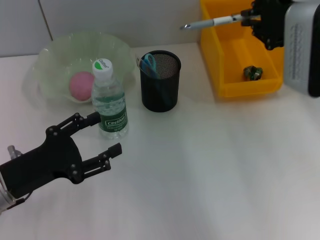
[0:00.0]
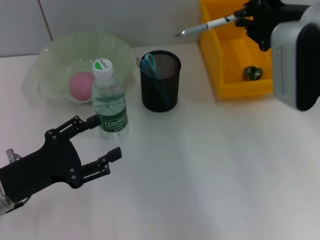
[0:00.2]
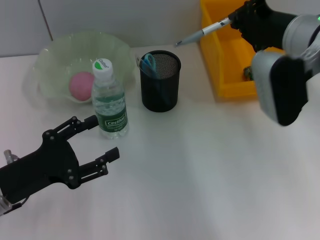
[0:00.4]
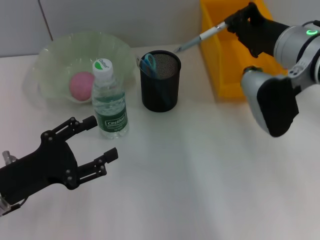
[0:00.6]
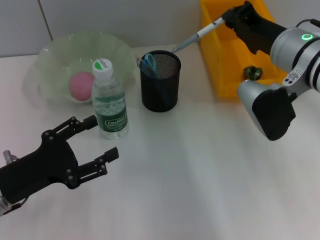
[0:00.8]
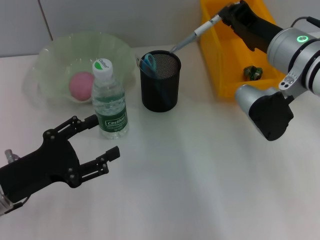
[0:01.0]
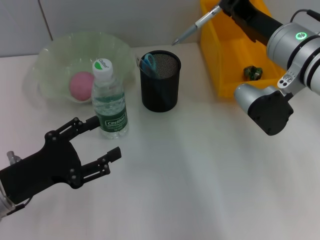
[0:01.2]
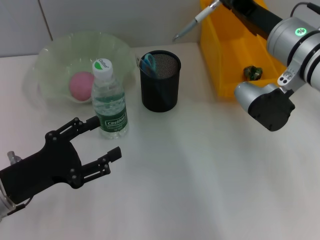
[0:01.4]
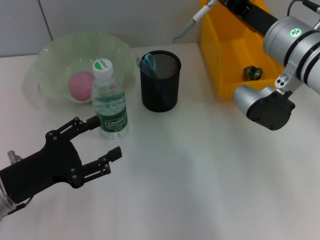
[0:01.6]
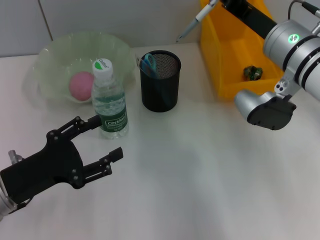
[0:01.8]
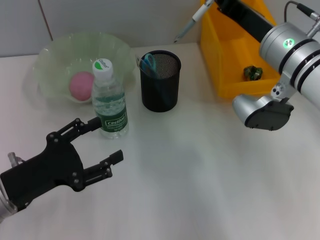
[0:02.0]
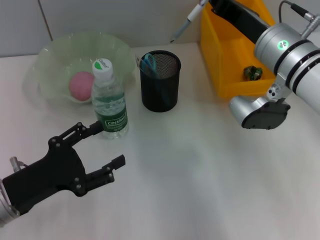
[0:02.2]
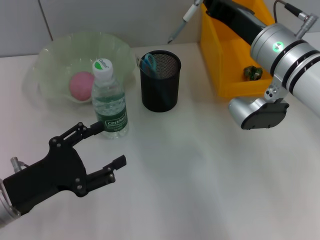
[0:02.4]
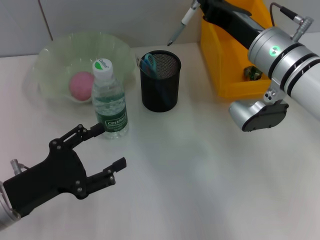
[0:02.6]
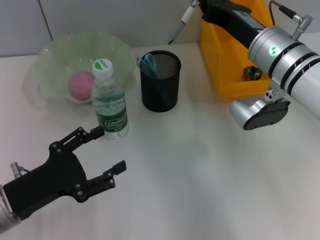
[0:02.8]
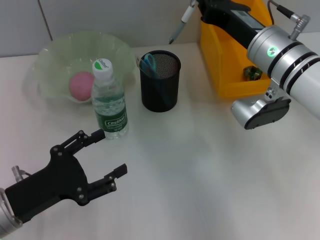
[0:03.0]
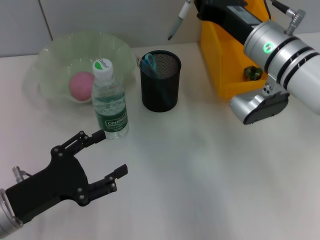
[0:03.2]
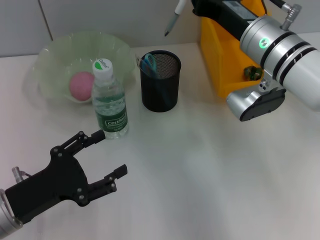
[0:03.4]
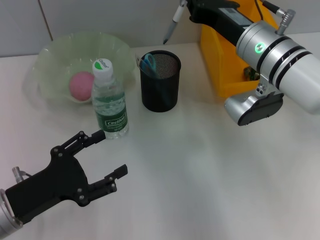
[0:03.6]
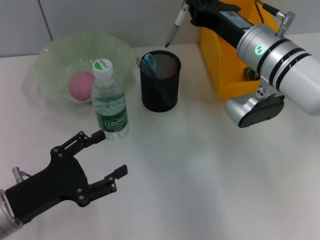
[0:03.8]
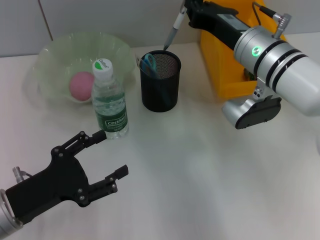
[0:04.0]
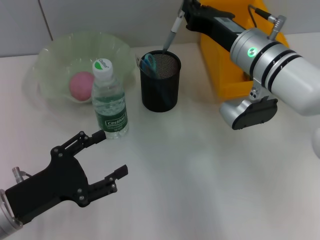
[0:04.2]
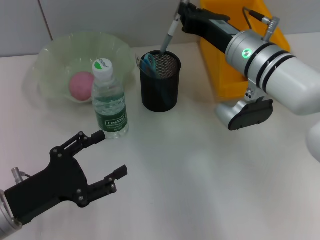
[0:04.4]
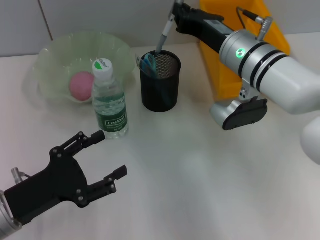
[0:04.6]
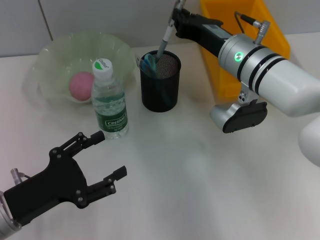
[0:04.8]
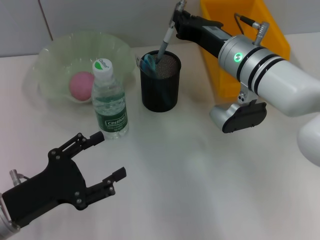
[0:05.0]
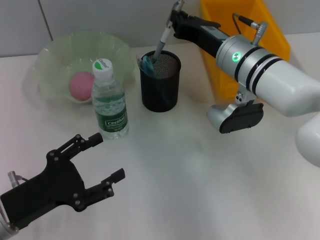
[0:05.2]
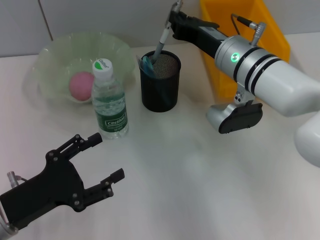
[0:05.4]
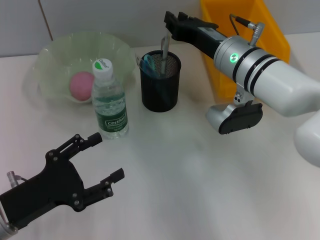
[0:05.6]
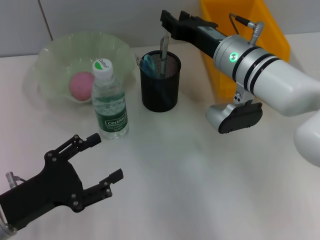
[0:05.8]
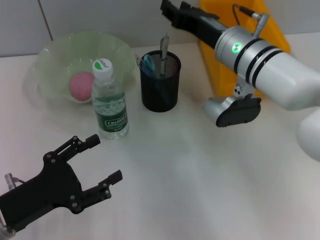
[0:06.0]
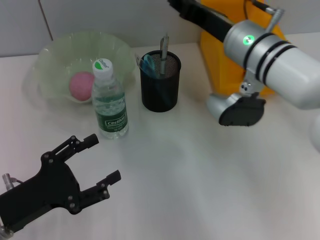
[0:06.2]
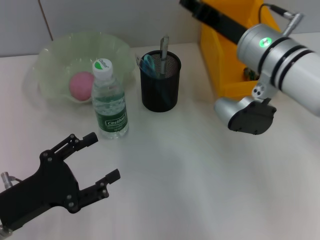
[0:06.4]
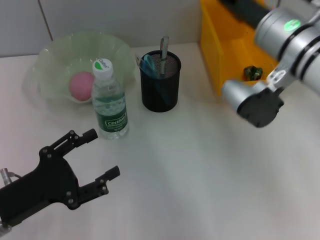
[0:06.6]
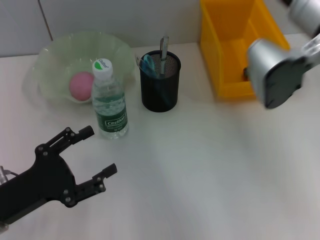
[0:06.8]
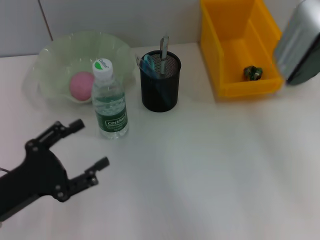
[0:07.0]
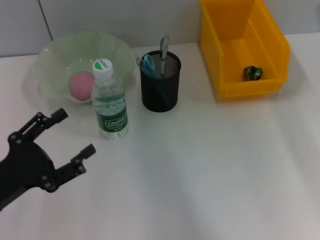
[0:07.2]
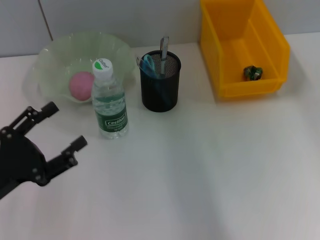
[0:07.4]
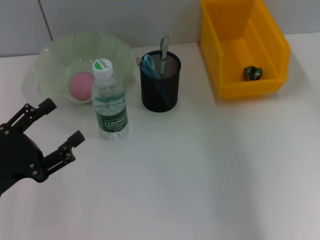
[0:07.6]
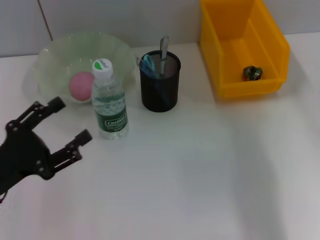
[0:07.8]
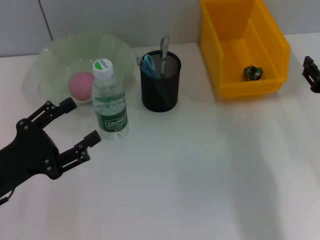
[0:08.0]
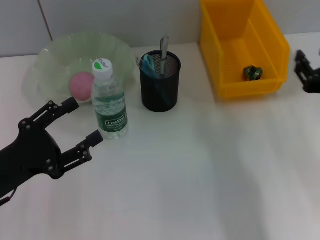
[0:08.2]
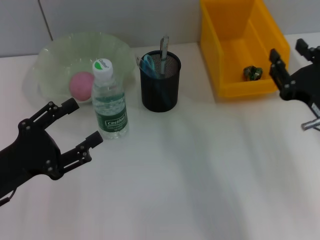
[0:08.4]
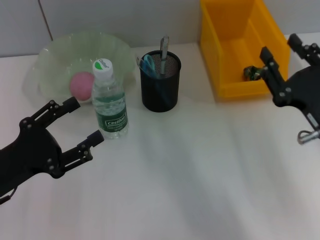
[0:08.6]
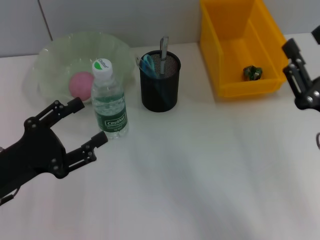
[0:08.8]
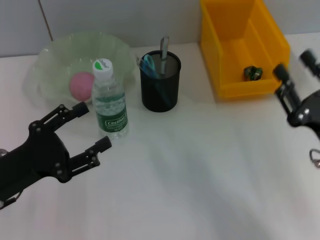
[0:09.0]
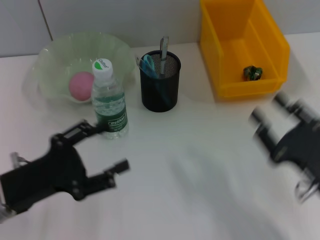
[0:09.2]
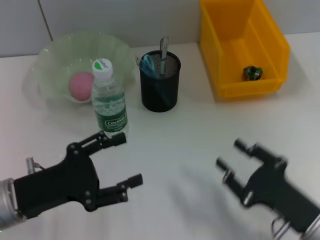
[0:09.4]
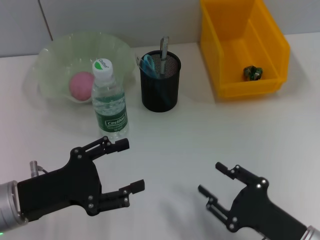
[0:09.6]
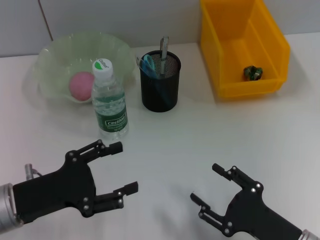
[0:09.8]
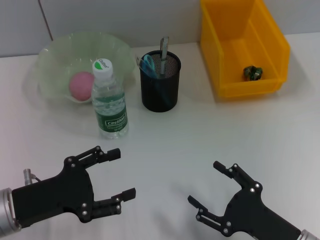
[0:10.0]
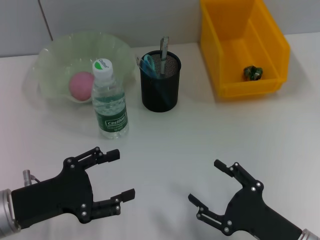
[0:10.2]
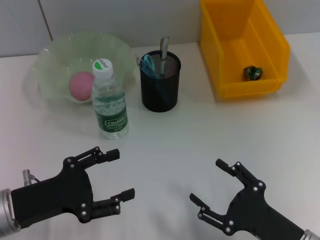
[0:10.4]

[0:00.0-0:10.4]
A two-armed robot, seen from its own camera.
Step, 0:00.0 to 0:06.2: Place the gray spring-action pen into the pen holder with the right hand.
0:00.0 to 0:01.4: The right gripper ends up roughly 5 cm from where it was.
0:03.0 to 0:04.4: The grippers make only small movements.
0:04.4 to 0:06.0: The right gripper opens its fingers.
0:06.0 to 0:07.4: The right gripper goes approximately 20 cm to the right, upward and backward.
0:07.4 to 0:09.0: The right gripper travels downward and backward by some 20 cm.
0:09.0 to 0:10.4: The right gripper moves downward and backward, about 10 cm, and opens its fingers.

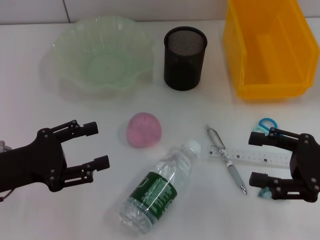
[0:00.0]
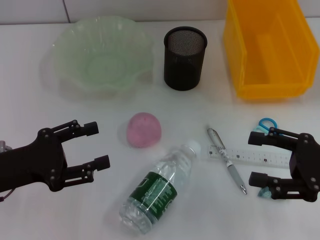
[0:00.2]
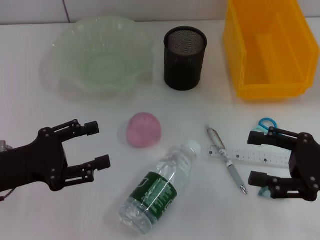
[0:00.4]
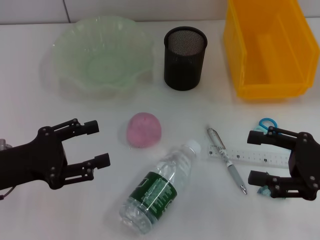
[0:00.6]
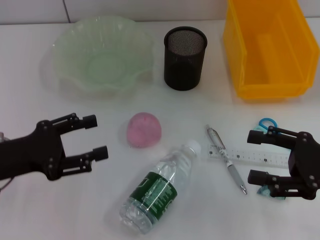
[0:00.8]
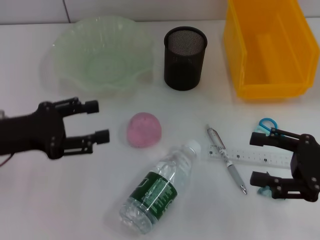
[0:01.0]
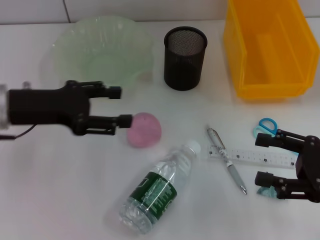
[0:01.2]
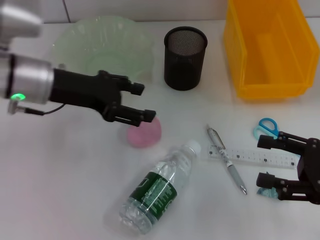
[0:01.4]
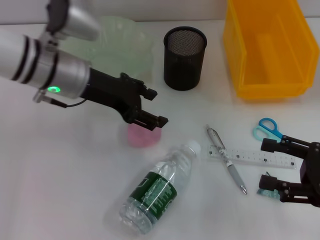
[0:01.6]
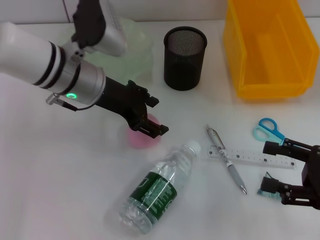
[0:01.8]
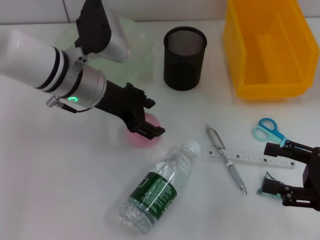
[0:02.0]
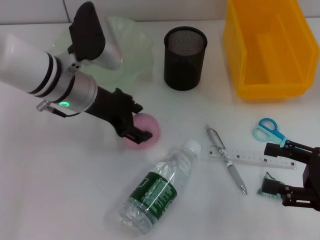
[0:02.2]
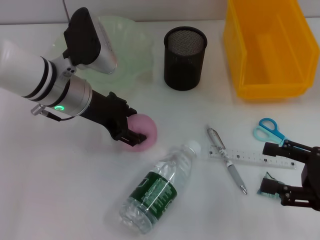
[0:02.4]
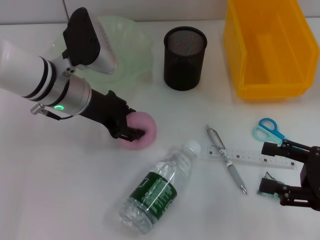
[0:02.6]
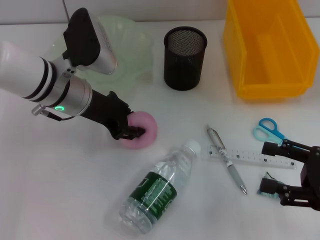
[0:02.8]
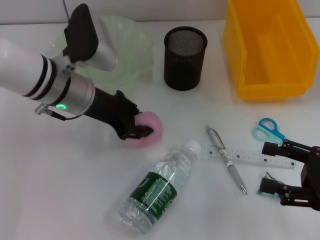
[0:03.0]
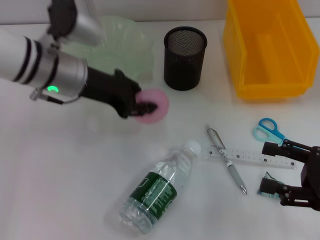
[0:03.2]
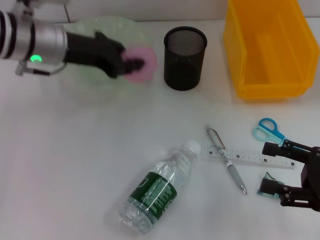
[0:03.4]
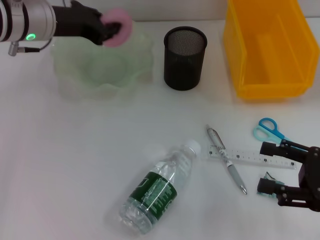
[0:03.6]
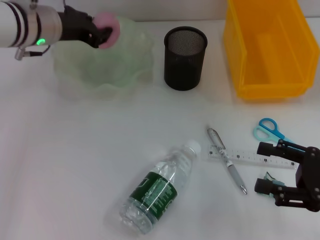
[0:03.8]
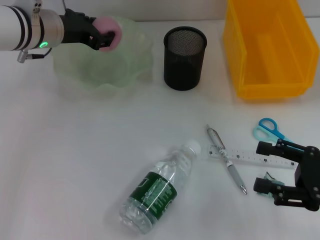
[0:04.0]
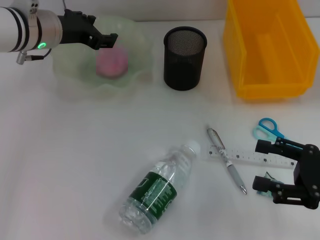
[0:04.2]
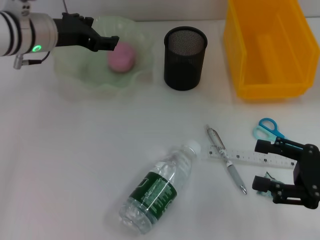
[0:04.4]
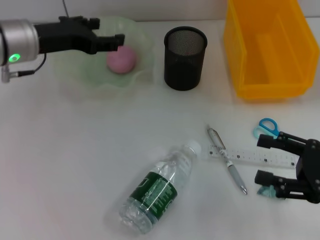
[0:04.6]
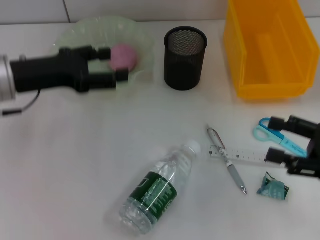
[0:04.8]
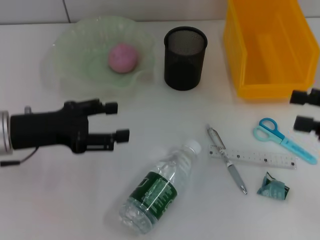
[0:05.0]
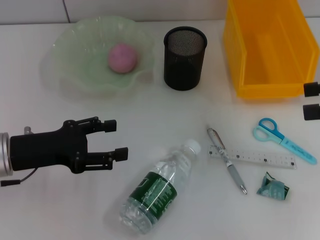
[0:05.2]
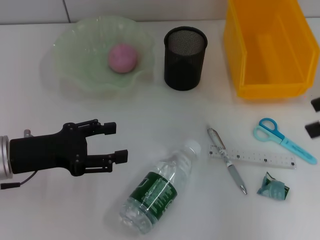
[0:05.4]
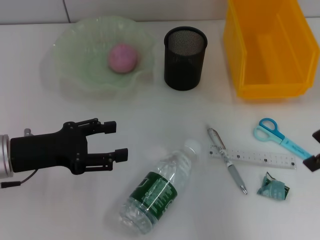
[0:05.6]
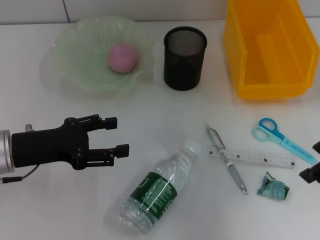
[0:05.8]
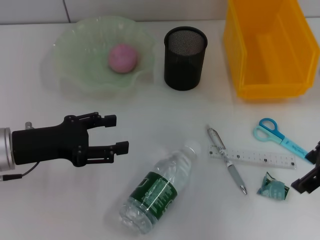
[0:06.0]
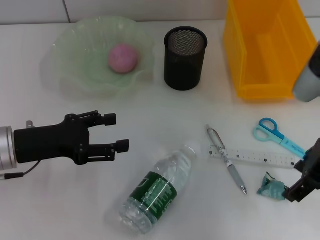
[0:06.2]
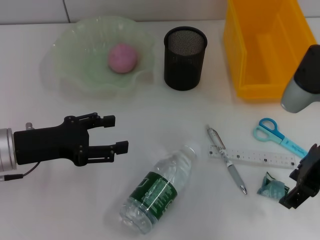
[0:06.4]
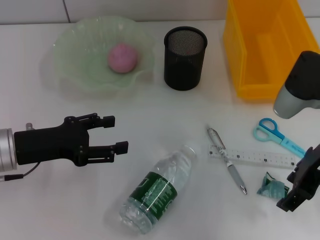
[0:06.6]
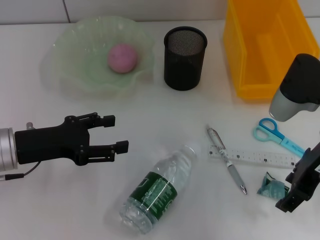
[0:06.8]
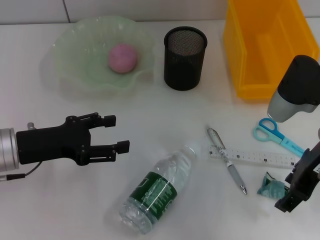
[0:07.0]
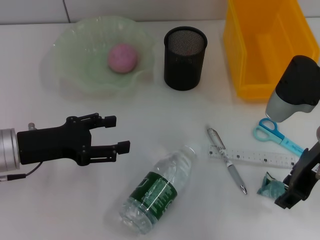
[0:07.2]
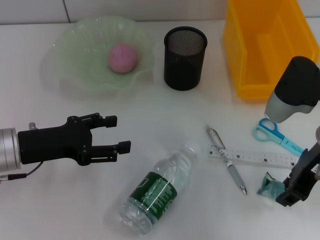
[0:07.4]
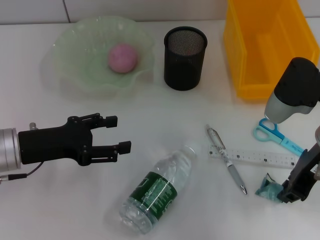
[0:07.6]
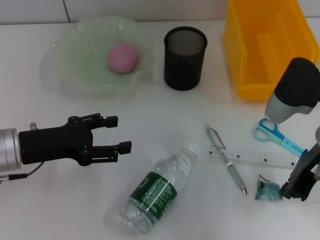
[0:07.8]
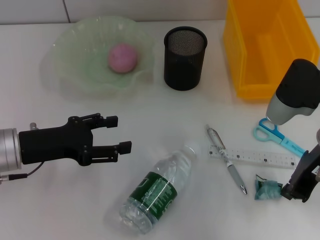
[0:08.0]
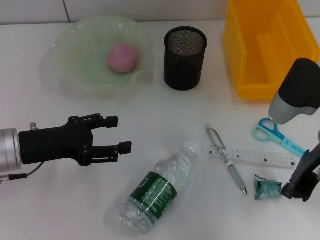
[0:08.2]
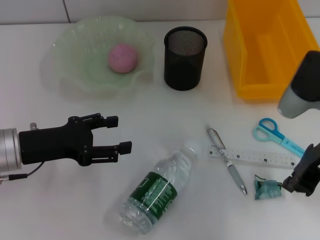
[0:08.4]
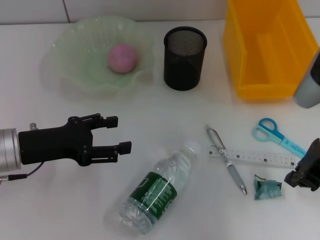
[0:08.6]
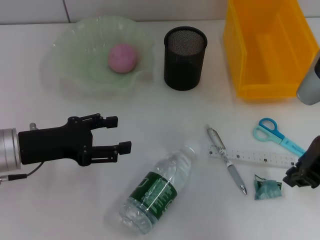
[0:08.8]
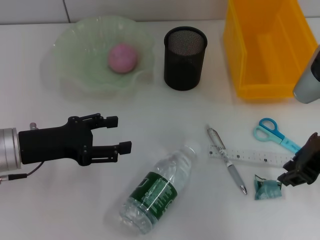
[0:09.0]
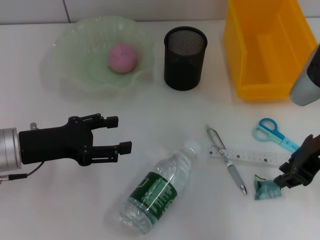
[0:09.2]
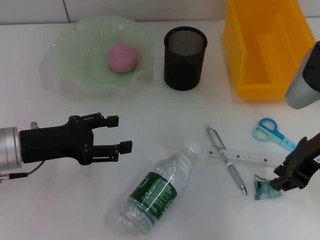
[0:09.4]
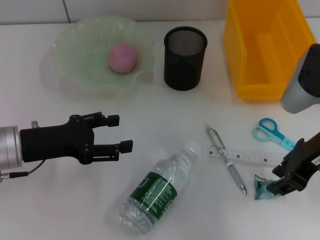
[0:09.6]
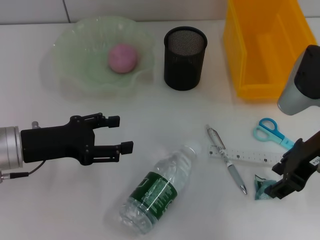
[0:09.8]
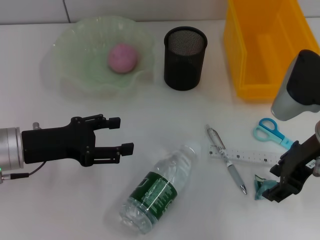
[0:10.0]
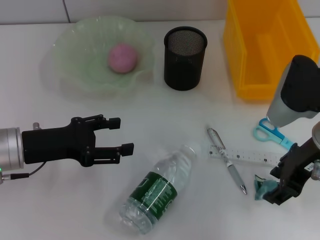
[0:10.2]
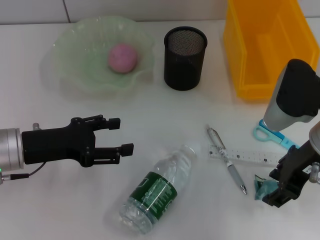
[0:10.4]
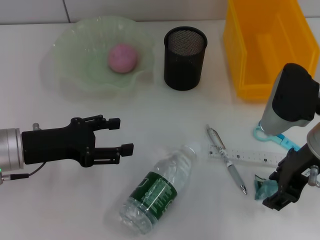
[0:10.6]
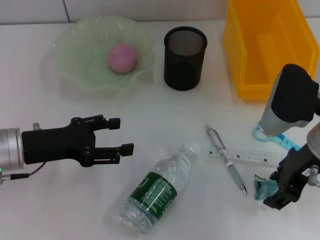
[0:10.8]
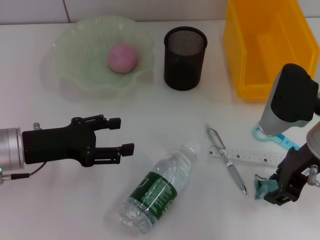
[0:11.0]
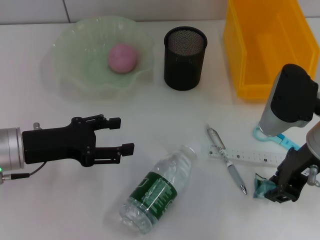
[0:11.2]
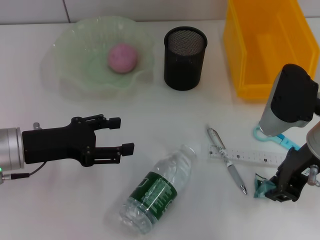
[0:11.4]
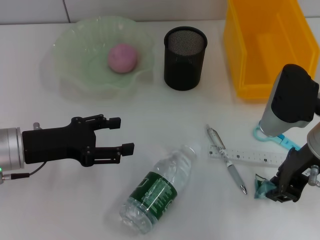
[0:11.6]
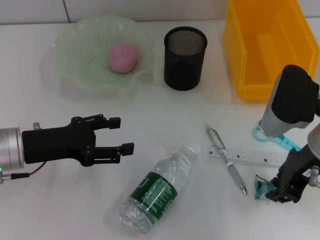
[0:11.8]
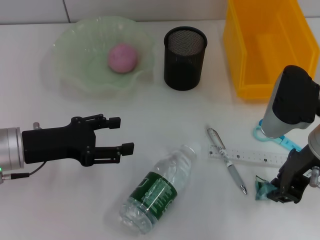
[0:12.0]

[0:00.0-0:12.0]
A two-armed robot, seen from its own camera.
Step, 0:00.0 to 0:02.6: Grab the peach with the left hand.
Step, 0:03.0 to 0:04.4: Place the peach into the fruit bowl with the left hand.
0:00.0 to 0:01.6: The left gripper travels forward, to the right and upward by roughly 20 cm.
0:01.6 to 0:03.0: The left gripper closes its fingers.
0:03.0 to 0:04.4: The left gripper moves forward and to the left, some 10 cm, and opens its fingers.
0:04.4 to 0:06.0: The left gripper goes about 15 cm backward and downward. The right gripper is displaced upward, forward and to the left by about 15 cm.
0:06.0 to 0:07.6: The right gripper travels downward by some 5 cm, and closes up.
0:07.6 to 0:09.0: The right gripper closes its fingers.
0:09.0 to 0:10.4: The right gripper opens up.
0:10.4 to 0:12.0: The right gripper closes up.
